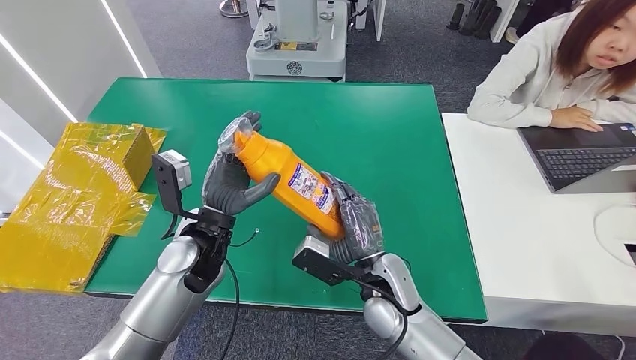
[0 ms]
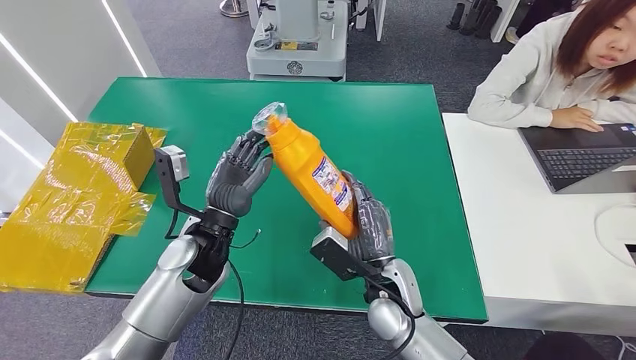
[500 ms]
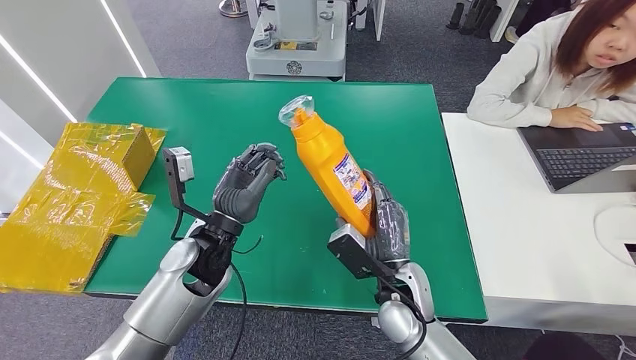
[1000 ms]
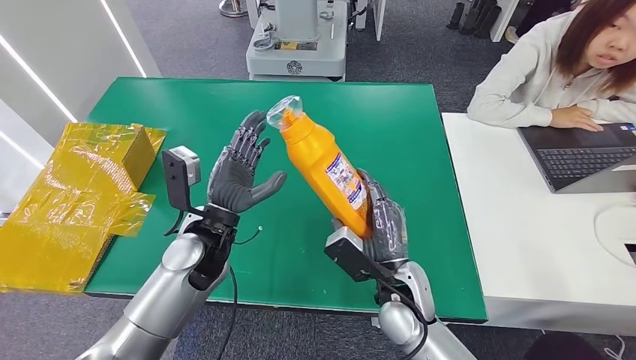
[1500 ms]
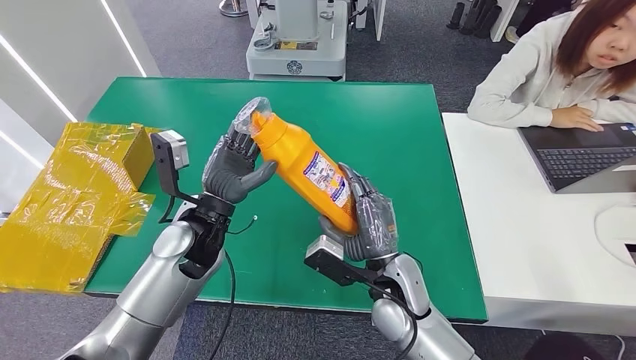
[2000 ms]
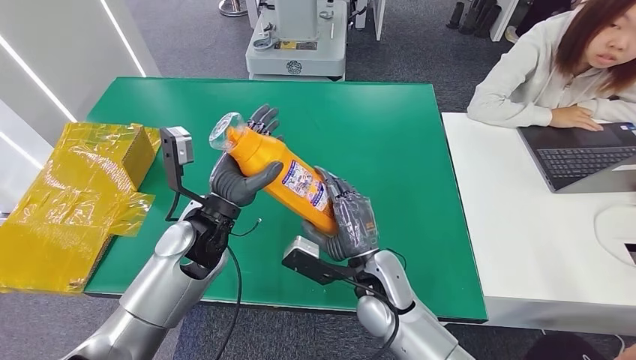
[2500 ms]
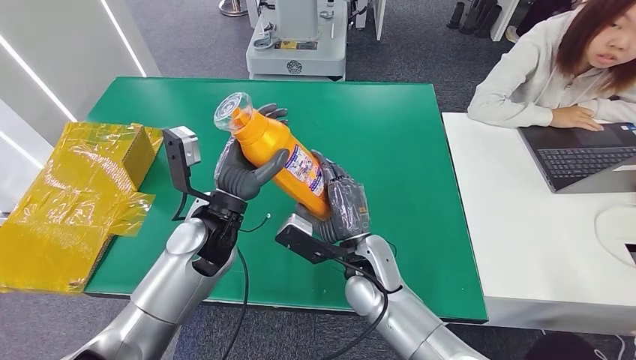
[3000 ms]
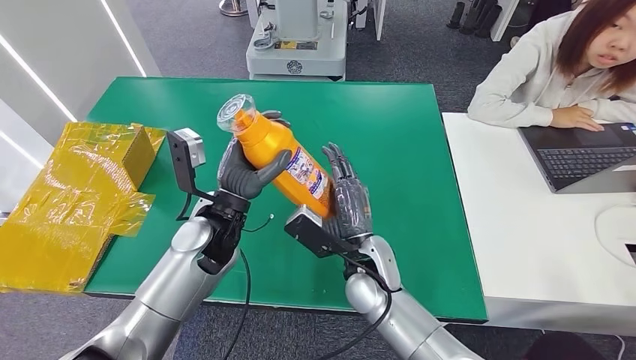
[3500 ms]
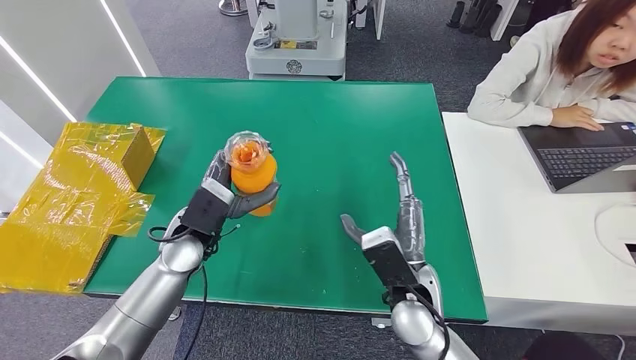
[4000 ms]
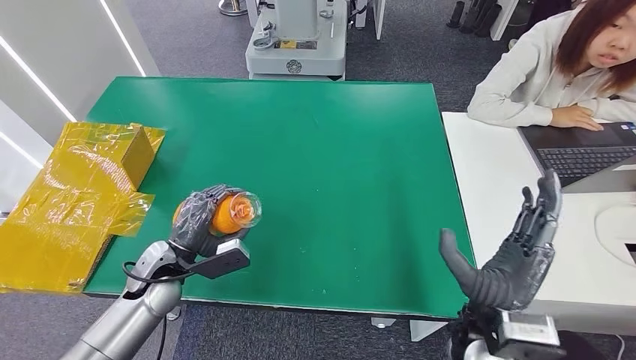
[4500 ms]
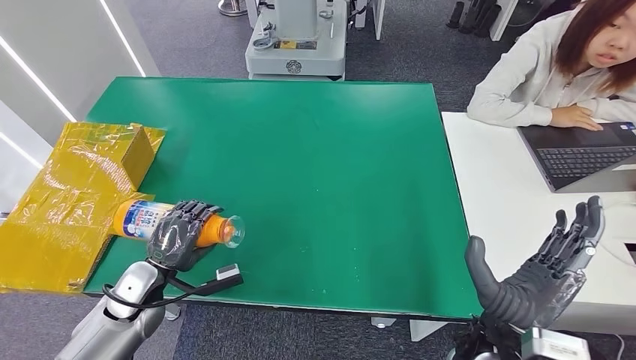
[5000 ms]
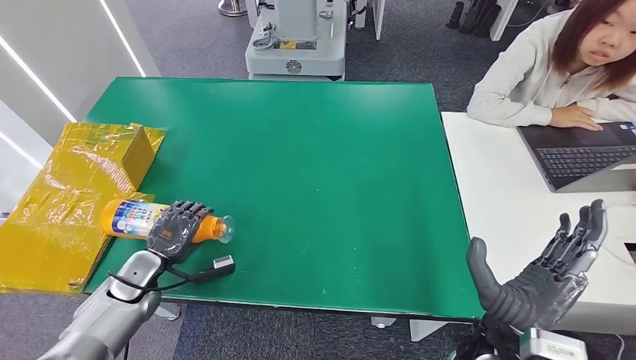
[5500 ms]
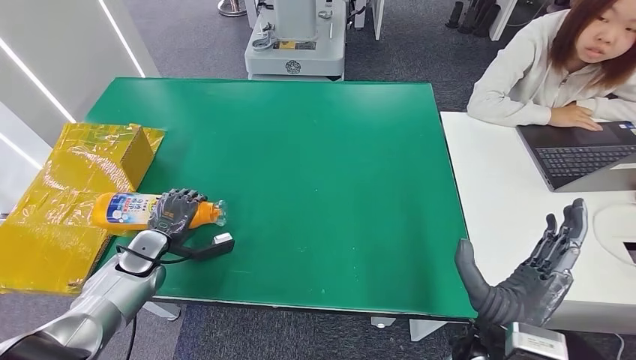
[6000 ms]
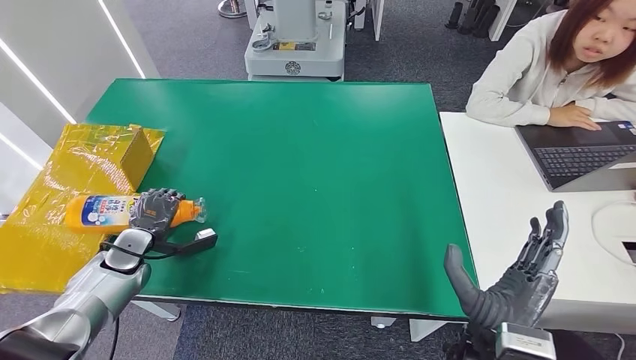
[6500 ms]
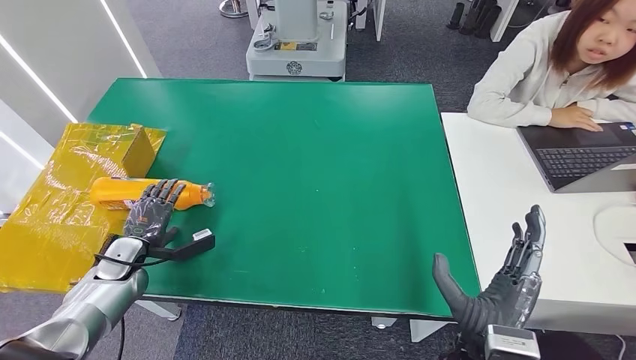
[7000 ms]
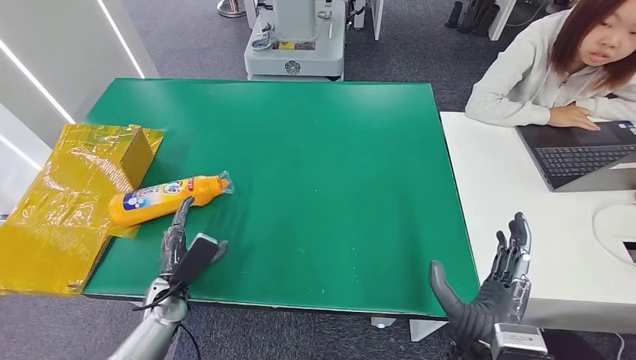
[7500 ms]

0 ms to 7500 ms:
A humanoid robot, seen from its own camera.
Step, 0 ms to 7500 ms: Turn the bottle to the front side.
0 ms to 2000 ms: The hands make only small movements.
2000 ms to 4000 ms: The left hand moves roughly 5 cm.
4000 ms to 5500 ms: The right hand is displaced backward and to the right by some 10 cm. Meanwhile the left hand heads to the left and downward, covering about 20 cm.
5500 ms to 7500 ms: The left hand shifts approximately 5 cm to the right.
